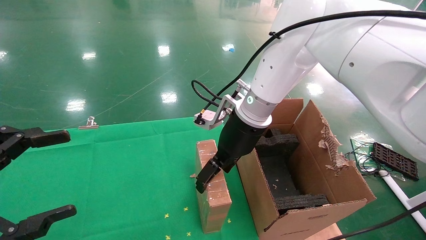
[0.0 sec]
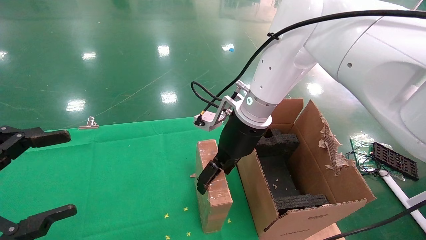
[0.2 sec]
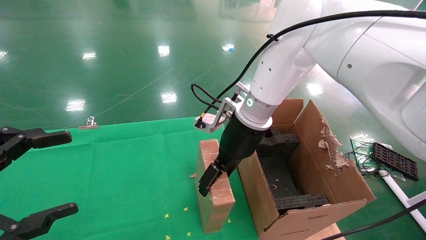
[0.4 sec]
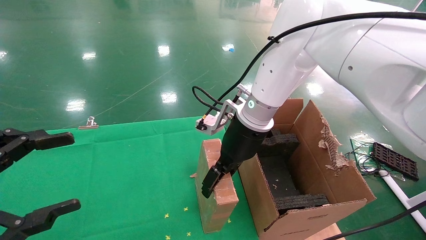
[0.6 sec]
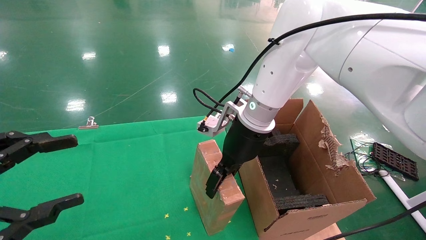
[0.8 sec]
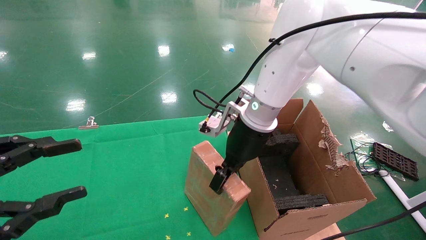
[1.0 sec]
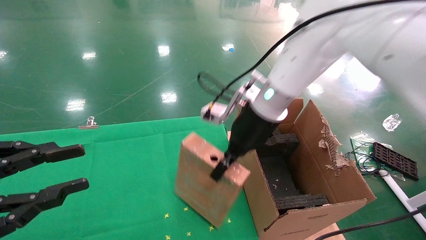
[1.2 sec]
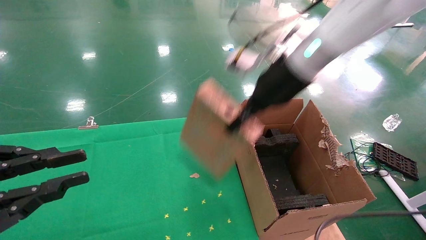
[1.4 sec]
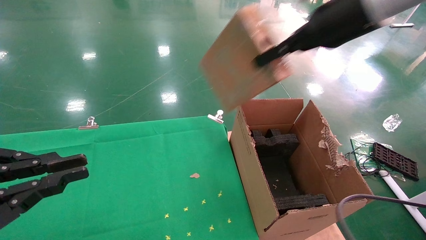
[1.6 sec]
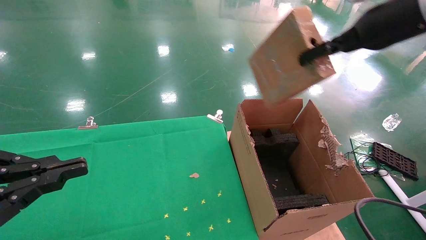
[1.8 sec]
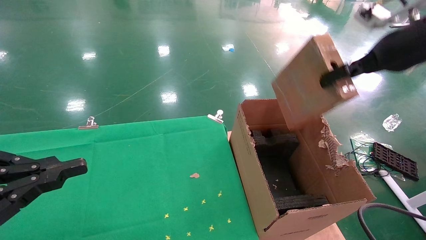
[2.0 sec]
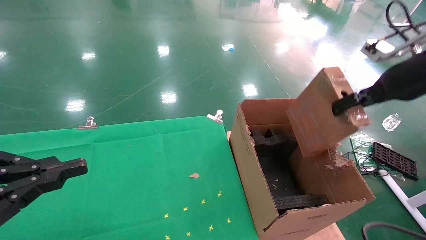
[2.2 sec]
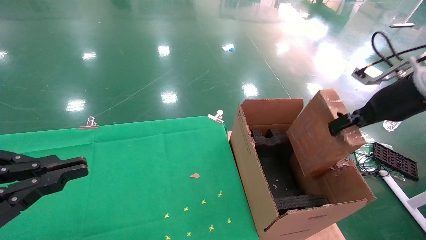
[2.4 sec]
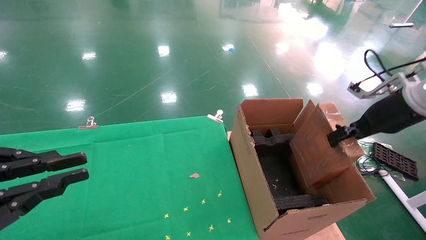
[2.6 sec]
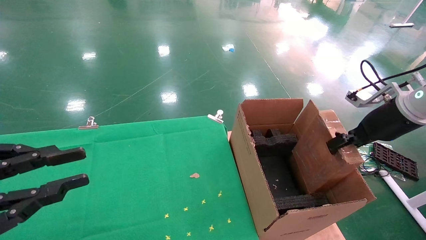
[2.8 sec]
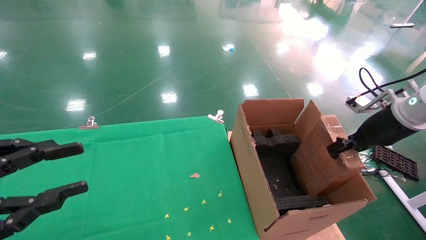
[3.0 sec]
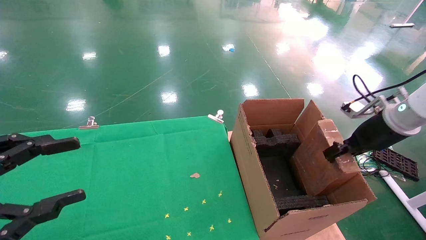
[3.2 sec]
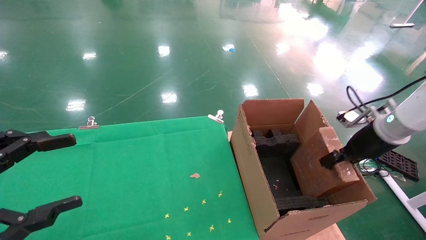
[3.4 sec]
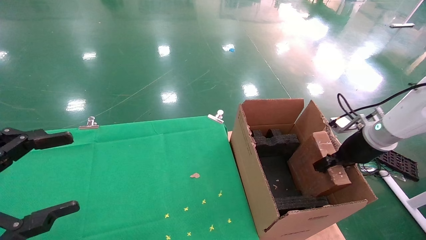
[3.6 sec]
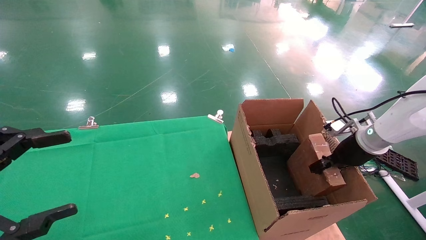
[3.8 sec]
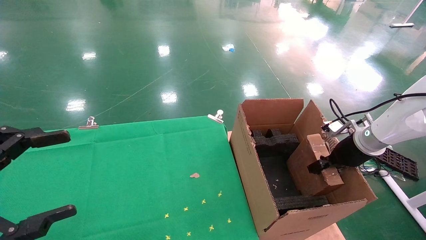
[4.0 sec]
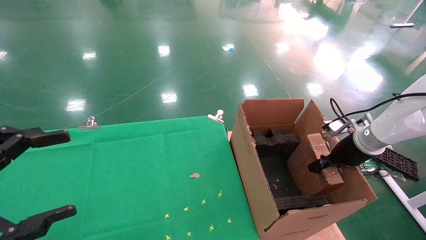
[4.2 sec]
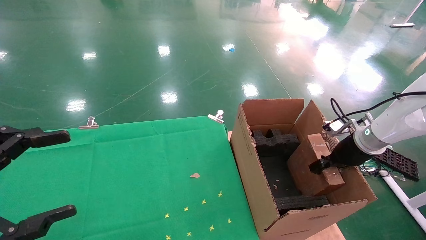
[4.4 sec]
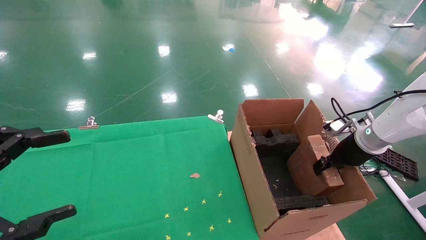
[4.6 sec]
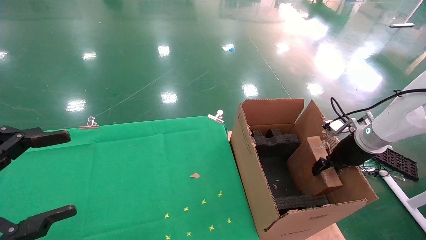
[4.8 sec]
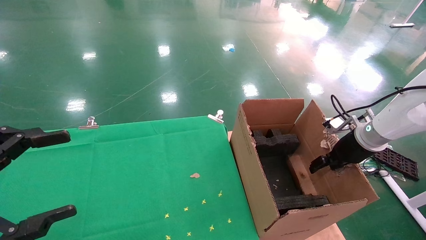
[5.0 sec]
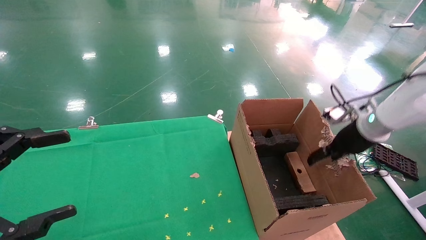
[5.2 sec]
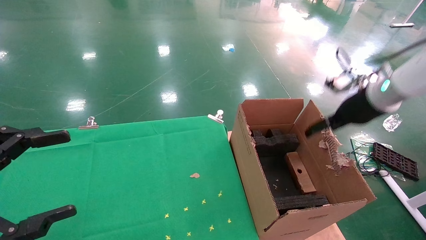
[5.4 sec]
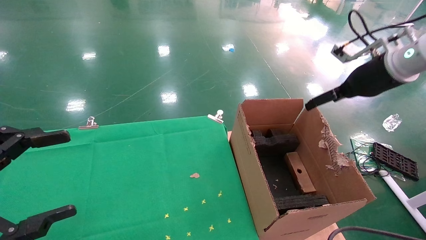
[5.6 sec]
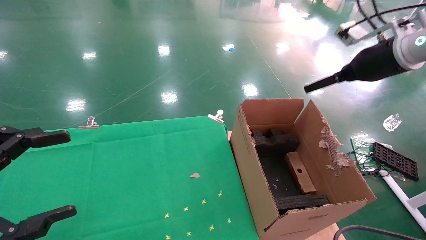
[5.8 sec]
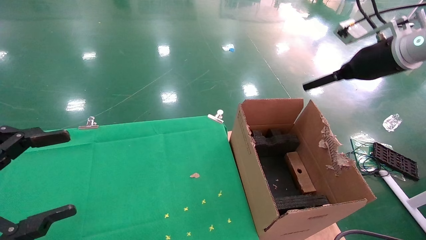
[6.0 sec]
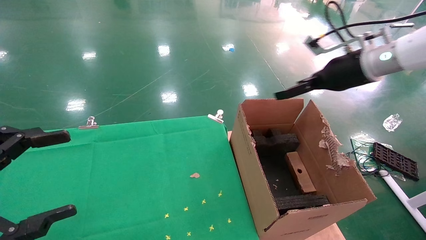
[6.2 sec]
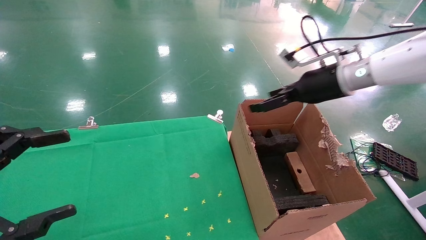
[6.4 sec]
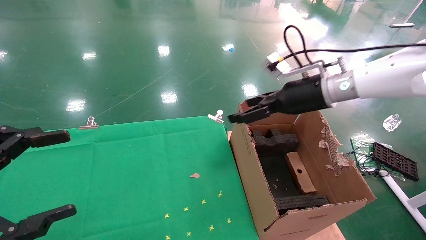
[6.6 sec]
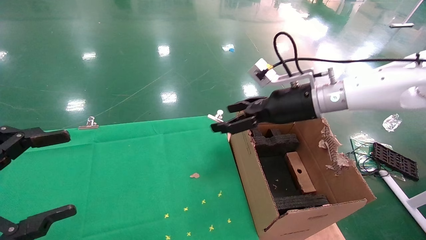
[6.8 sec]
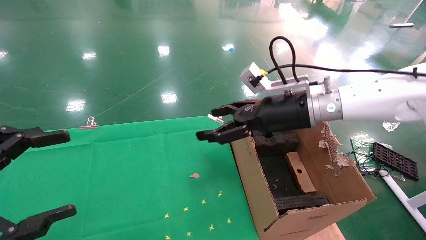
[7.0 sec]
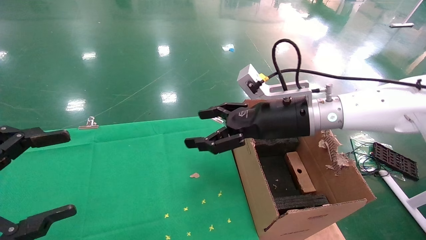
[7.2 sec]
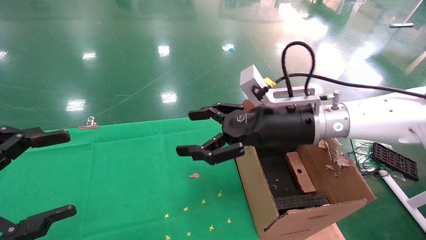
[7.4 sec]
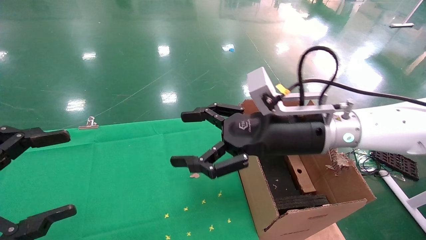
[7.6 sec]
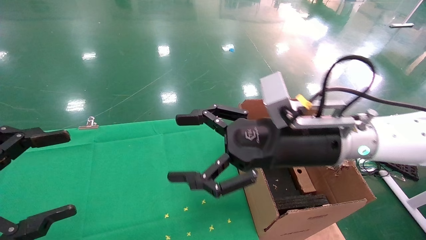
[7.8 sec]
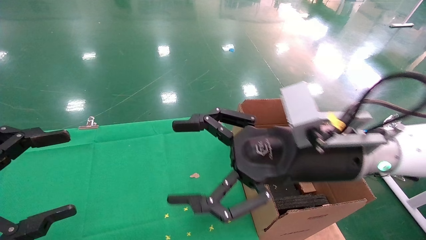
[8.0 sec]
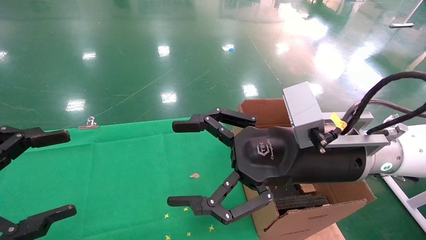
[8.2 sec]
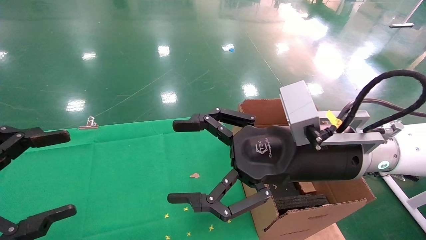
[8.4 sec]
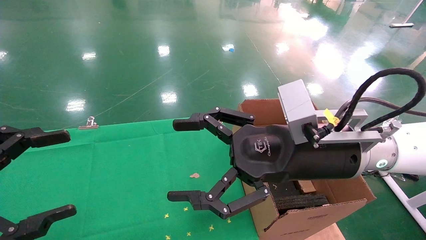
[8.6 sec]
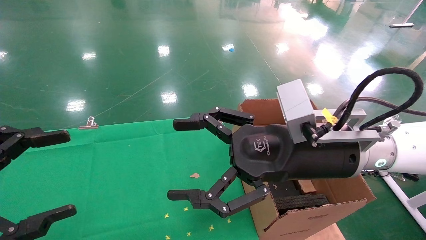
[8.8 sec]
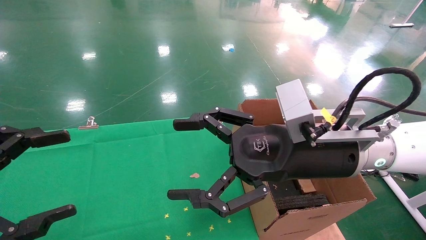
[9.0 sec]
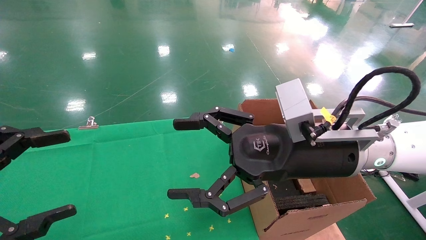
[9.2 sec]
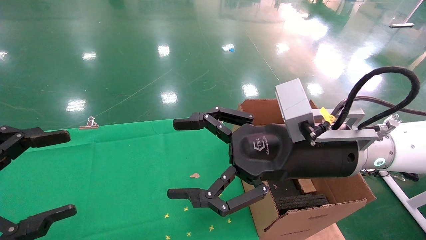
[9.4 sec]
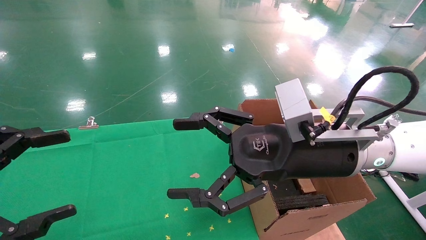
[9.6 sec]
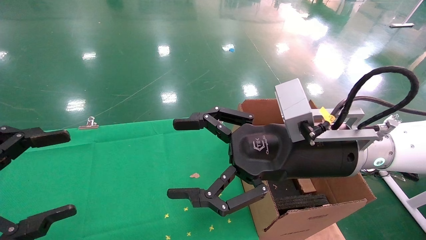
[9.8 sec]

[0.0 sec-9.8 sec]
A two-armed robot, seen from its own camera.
Task of the whole recording: using a robotic arm to pick up a cardboard box and palace it the carton.
Step, 1.4 sec to 4.8 sec: Place the mouse and the power cord paper box into the container.
0.0 sec to 1.4 sec: The left gripper closes up, while the right gripper moves upward and to the right, roughly 15 cm, and closes.
1.4 sec to 2.8 sec: The right gripper shifts some 25 cm to the right and downward.
2.8 sec to 4.2 sec: The right gripper is displaced downward and forward by about 10 cm. The left gripper opens up.
4.2 sec to 5.6 sec: The right gripper is displaced upward by about 15 cm, and opens up.
5.6 sec to 7.0 sec: The right gripper goes some 20 cm to the left.
7.0 sec to 8.4 sec: The right gripper shifts about 15 cm backward.
8.4 sec to 9.8 sec: Both grippers stay put.

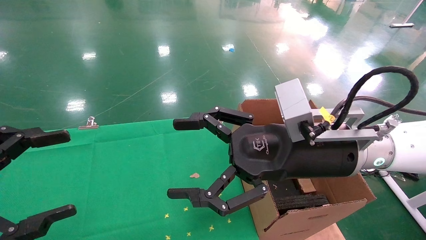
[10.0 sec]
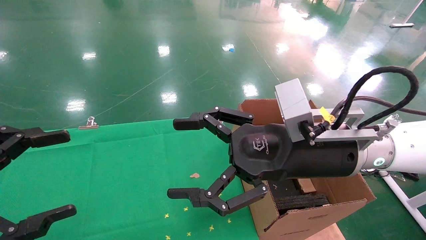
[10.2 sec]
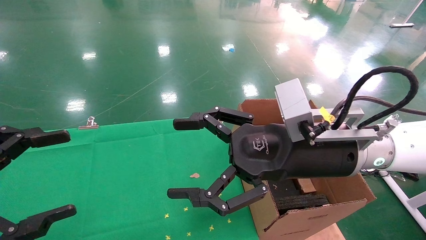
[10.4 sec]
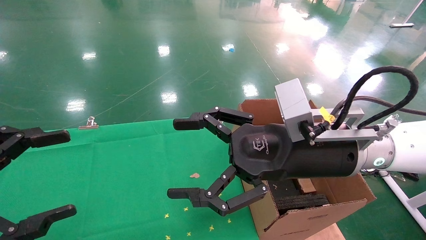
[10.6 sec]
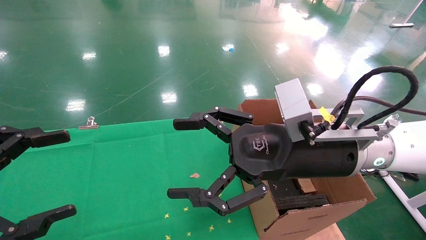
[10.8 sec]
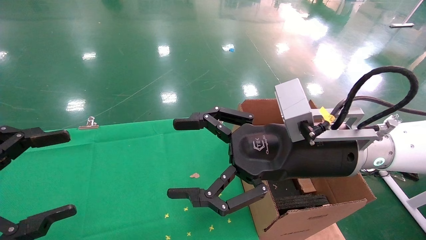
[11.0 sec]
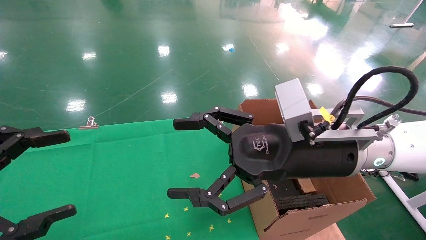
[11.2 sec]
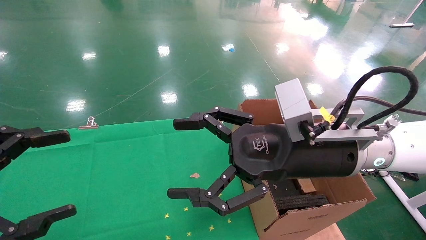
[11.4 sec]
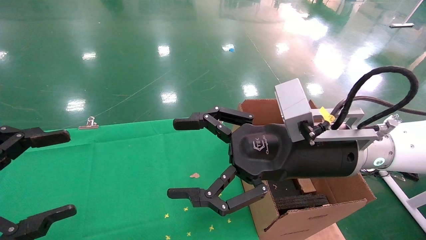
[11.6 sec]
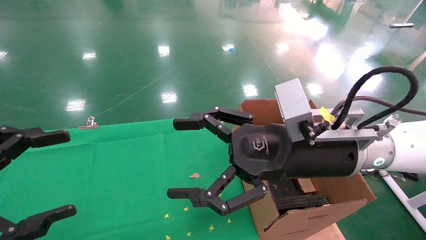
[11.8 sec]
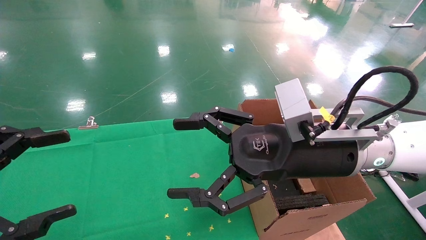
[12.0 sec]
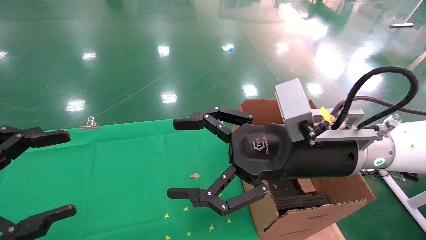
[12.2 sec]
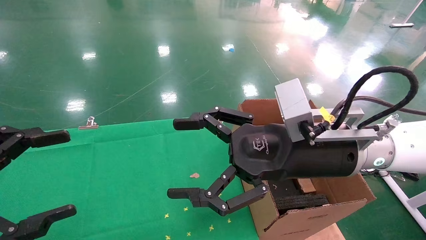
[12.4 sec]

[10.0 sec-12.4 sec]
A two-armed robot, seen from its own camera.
Task of the whole recording: using a robotic arm to pick up a cardboard box and palace it the carton.
10.0 sec to 12.4 sec: Neither gripper changes place.
